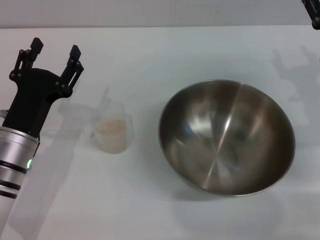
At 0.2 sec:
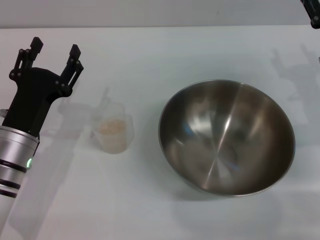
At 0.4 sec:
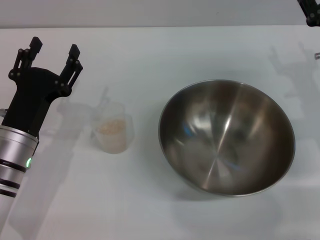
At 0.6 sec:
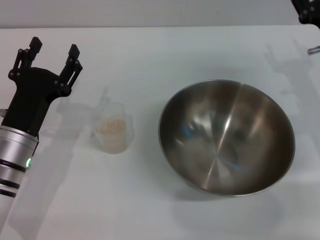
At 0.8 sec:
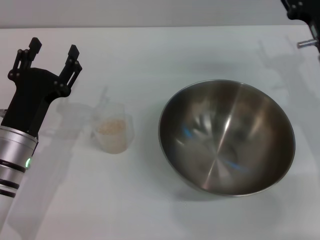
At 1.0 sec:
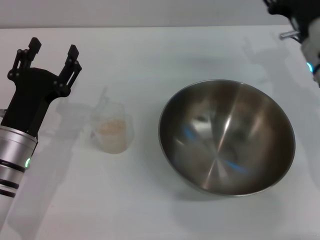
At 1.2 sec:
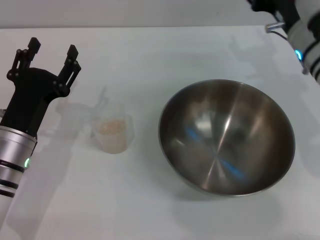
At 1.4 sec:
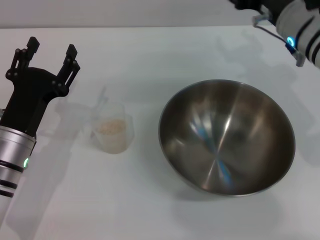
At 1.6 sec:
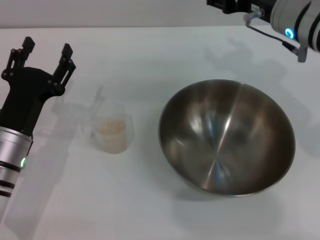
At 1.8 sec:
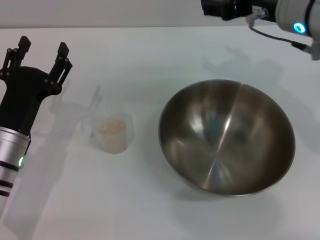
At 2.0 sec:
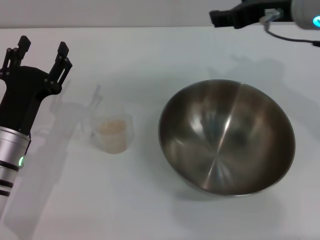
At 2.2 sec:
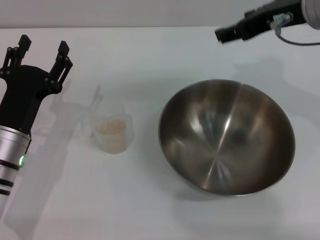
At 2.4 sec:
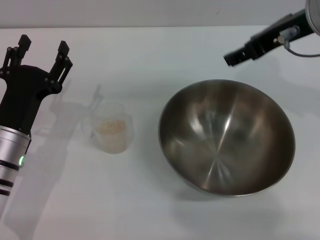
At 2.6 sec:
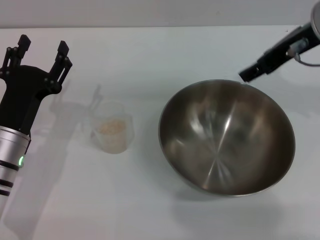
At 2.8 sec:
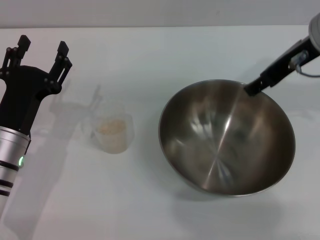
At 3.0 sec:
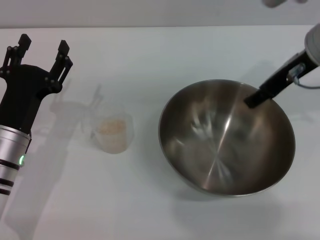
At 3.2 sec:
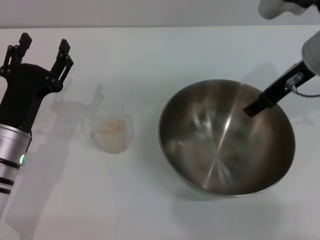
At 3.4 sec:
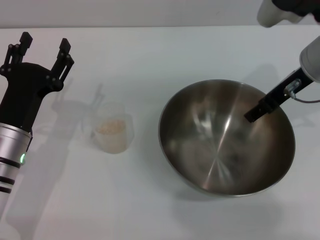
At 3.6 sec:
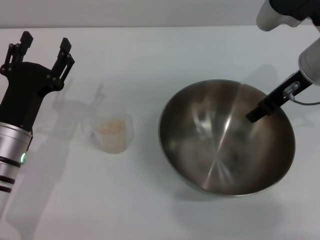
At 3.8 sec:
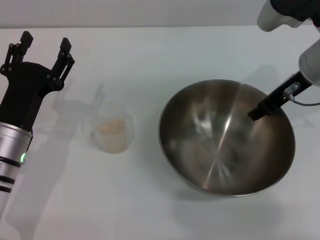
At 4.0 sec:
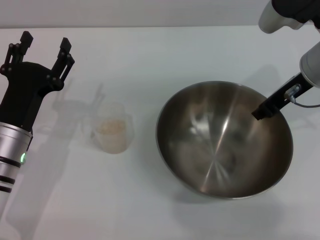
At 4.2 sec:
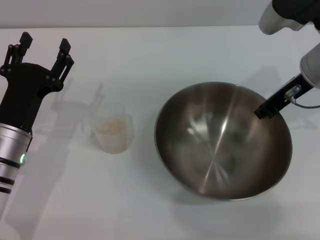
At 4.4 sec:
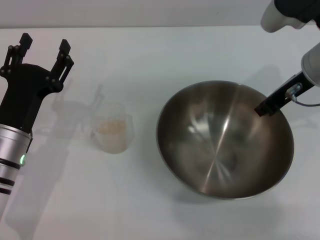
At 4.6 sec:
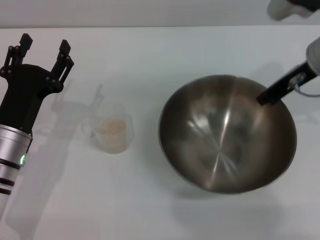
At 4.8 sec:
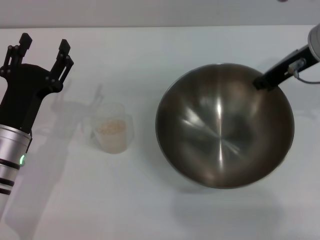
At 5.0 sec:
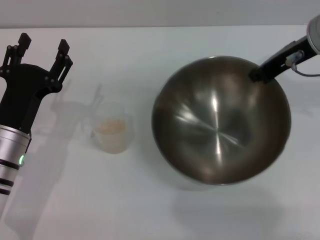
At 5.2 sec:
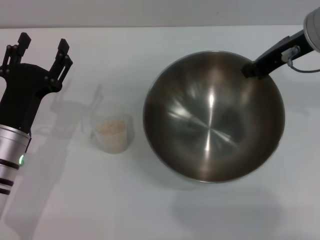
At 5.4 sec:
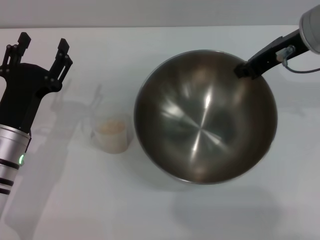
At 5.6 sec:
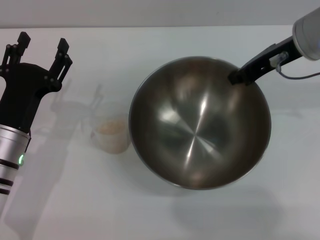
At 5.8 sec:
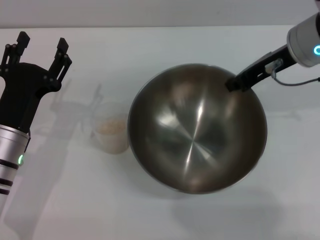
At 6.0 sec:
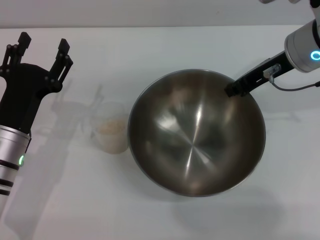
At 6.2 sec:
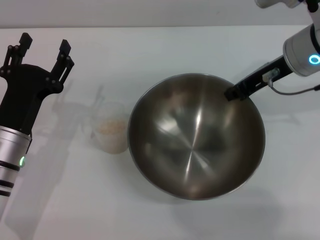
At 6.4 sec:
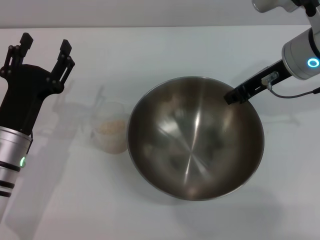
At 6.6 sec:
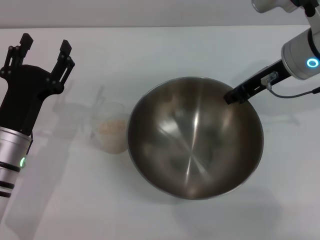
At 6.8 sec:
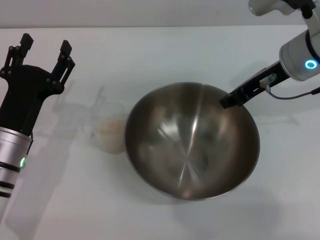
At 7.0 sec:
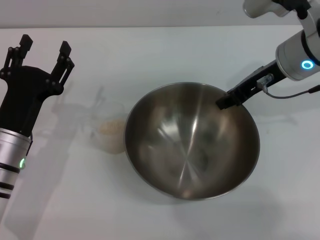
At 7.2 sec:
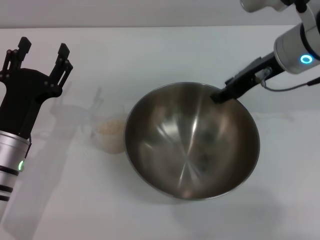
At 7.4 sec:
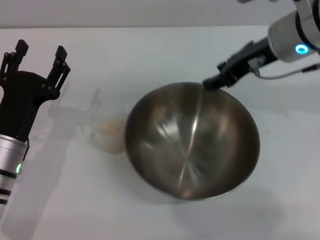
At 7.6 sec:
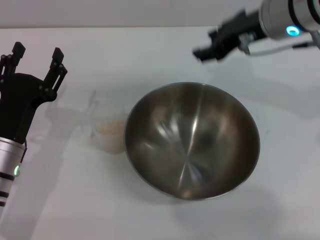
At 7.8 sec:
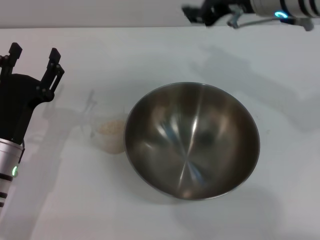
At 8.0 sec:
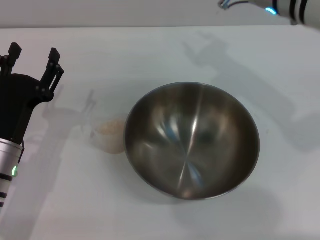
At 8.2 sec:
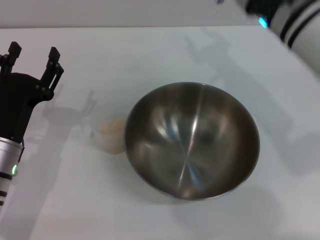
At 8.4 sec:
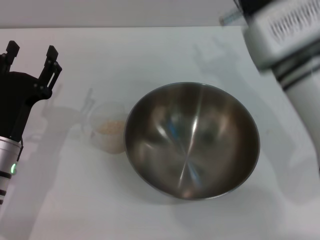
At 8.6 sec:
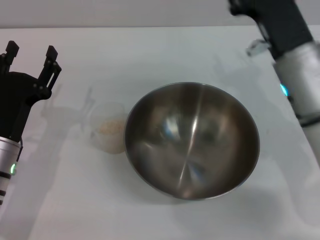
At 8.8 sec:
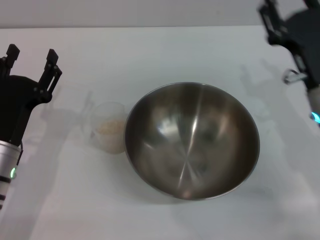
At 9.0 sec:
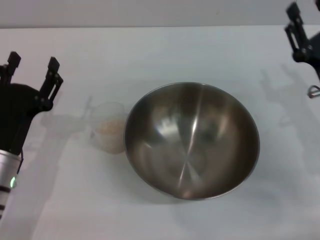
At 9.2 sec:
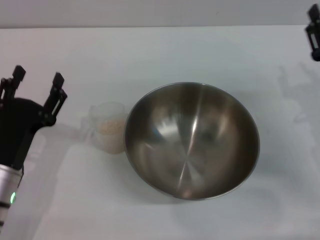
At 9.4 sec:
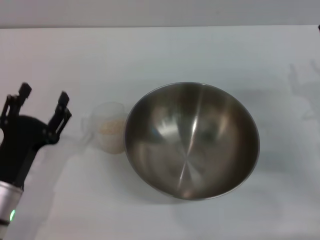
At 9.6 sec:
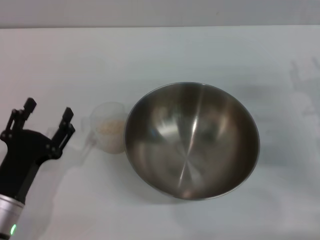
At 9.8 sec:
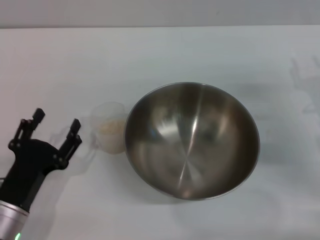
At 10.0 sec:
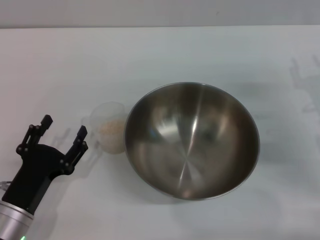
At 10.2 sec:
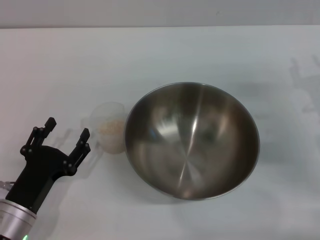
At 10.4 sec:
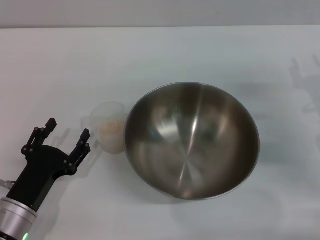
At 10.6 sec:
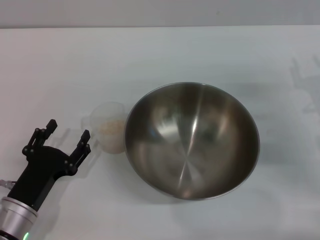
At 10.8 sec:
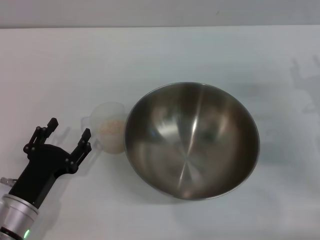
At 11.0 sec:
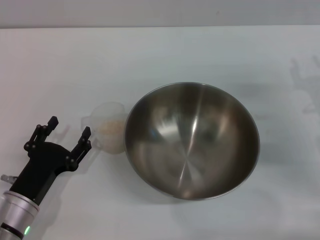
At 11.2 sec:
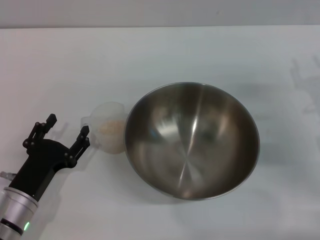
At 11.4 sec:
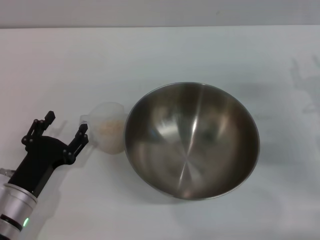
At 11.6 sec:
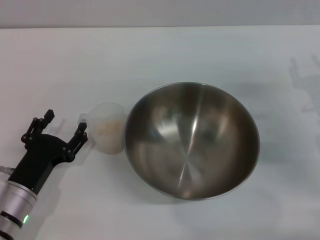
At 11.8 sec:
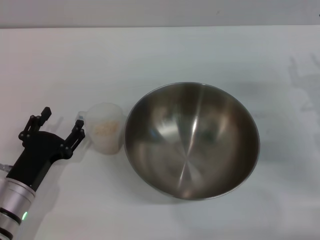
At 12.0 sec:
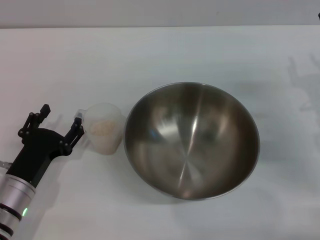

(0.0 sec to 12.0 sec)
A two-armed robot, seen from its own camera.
Task of the whole recording: Place the bowl in the middle of the table with one hand and pour the rice from the grain cup into it with the other hand.
Step, 0.0 sec - 5.2 sec: Pick up the bowl with the right gripper.
Step, 5.4 sec - 7.4 sec: Place the bowl in the center of view with the right gripper.
0.0 sec - 1.6 sec: The right gripper travels upward, to the left and forward by some 15 cm.
3.0 sec - 4.4 sec: The right gripper closes its fingers.
6.0 sec - 7.6 sec: The right gripper ends up approximately 5 cm from where it was, and opens.
7.6 sec - 9.0 sec: The right gripper heads downward, to the right and backward, covering about 20 cm.
9.0 sec - 10.4 sec: The left gripper moves backward, approximately 5 cm.
10.4 sec - 12.0 sec: The grippers make only small movements.

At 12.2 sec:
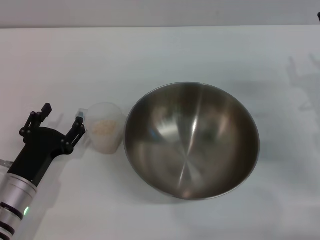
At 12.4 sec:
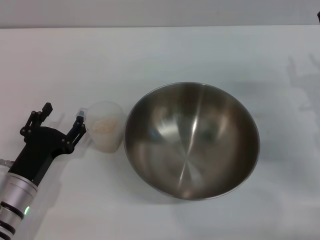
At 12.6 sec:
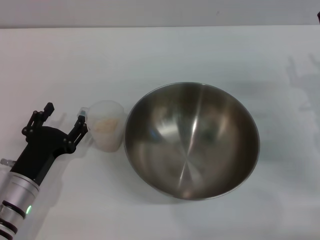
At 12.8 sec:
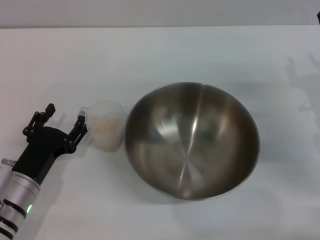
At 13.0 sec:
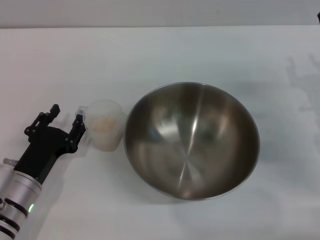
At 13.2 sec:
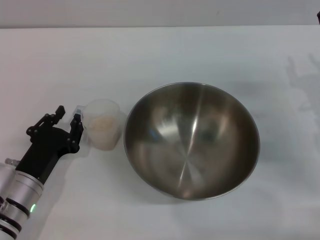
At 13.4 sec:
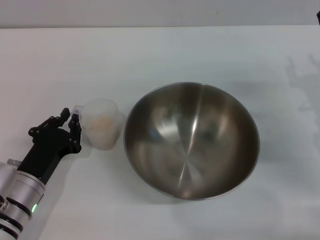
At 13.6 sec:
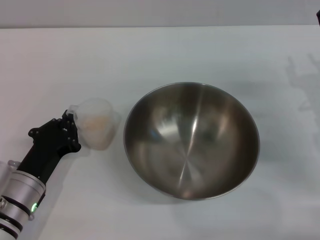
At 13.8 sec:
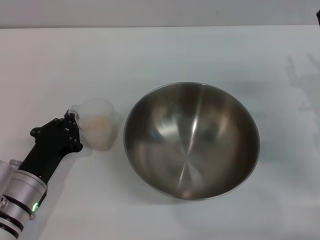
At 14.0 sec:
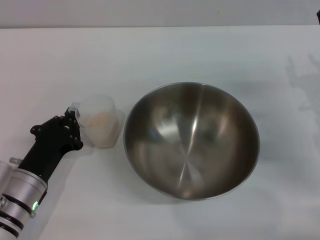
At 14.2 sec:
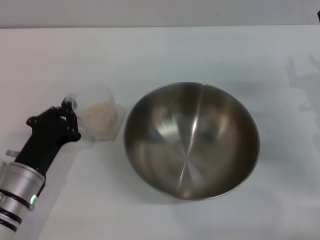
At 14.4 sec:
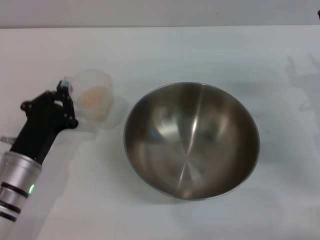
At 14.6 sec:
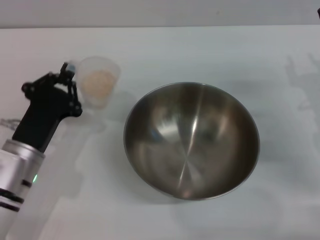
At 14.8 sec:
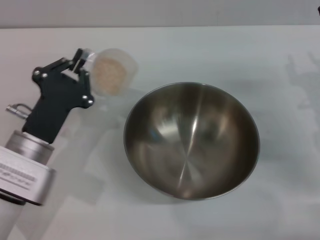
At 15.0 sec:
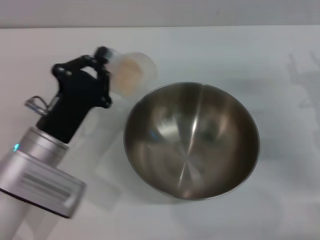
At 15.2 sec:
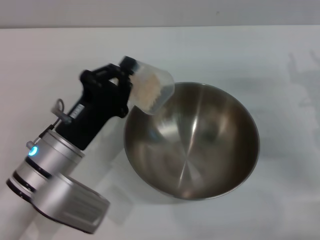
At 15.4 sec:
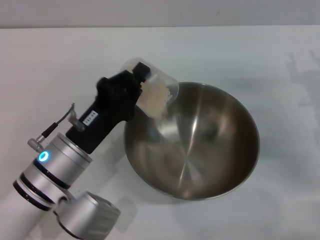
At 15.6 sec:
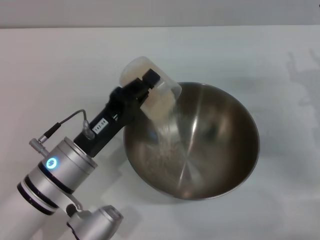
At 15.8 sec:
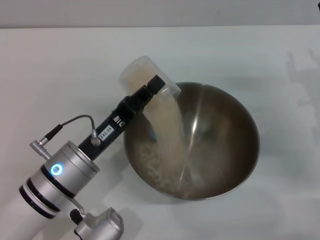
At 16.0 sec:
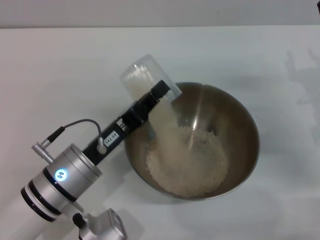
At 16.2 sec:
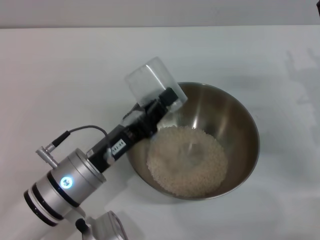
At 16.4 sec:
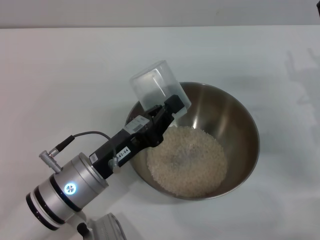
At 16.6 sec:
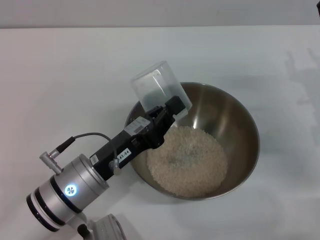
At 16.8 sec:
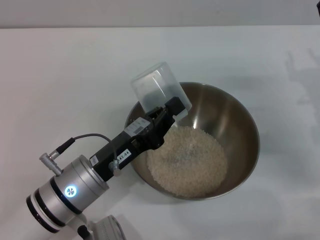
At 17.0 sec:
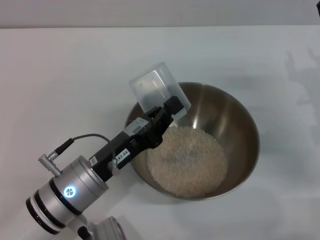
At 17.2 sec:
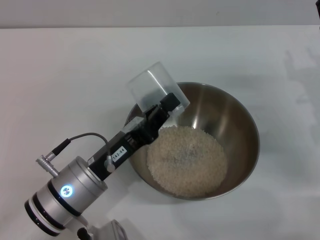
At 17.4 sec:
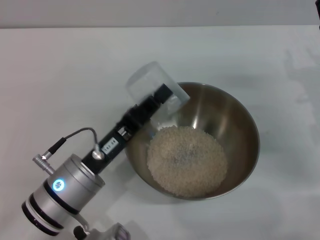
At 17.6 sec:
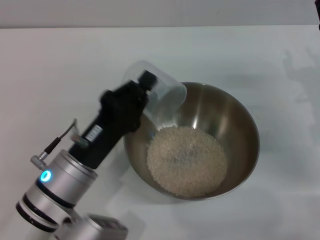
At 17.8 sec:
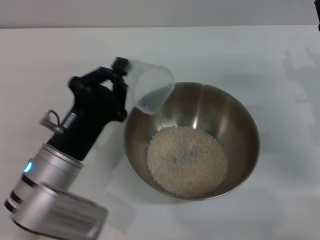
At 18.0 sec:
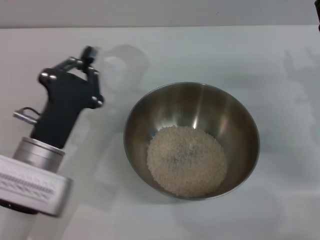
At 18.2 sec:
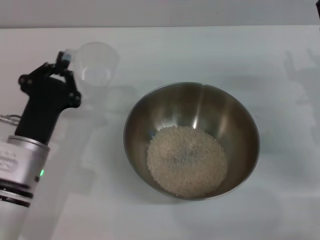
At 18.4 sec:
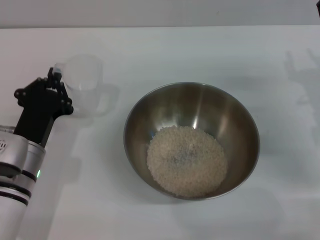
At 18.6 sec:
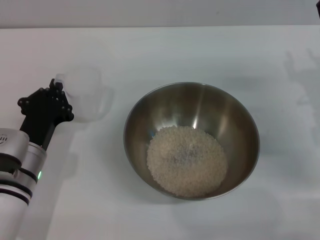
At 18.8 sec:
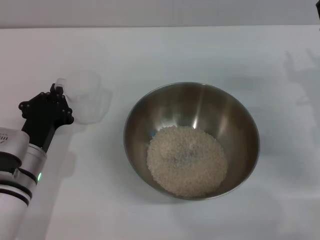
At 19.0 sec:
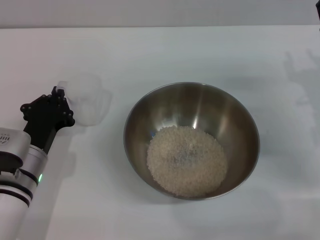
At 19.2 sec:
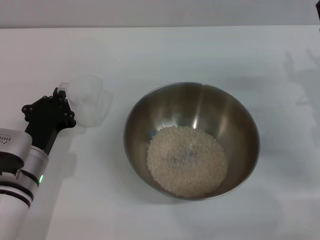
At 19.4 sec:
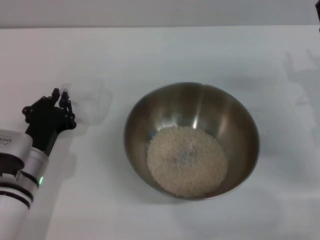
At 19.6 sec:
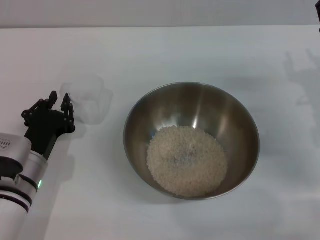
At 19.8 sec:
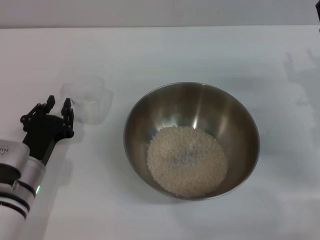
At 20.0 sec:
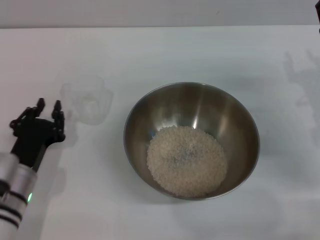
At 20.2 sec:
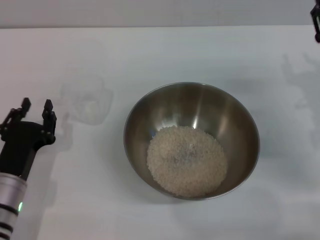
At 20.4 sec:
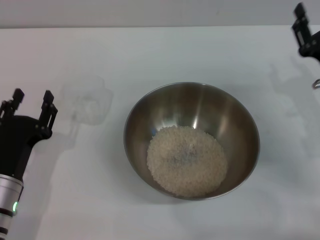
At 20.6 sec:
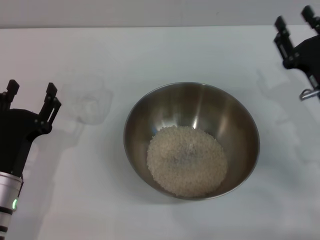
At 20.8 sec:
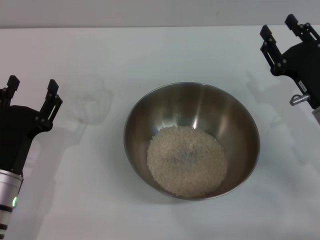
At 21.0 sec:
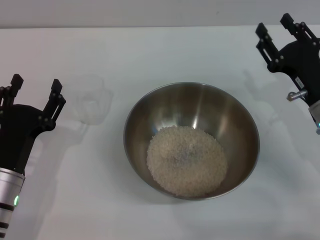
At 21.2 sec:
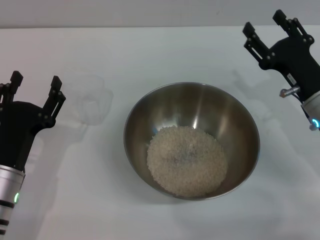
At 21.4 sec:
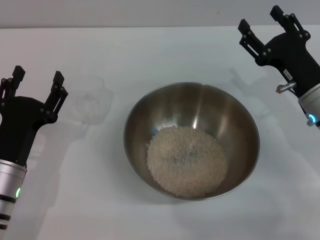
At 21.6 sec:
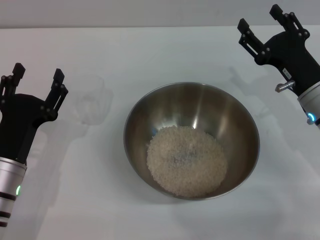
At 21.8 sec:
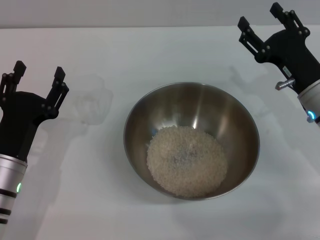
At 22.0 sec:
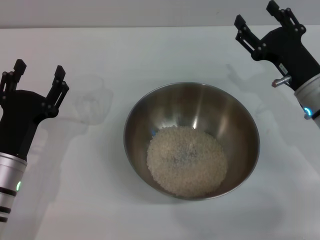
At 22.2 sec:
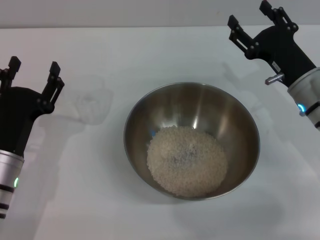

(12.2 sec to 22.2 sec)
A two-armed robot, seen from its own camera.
Task of the whole recording: Place the bowl in the middle of the table with one hand and pour the rice from the grain cup into it with the other hand.
Step, 12.2 sec - 14.4 sec: Pick up the cup with rice in it with the left gripper.
Step, 14.6 sec - 17.8 sec: Pour the rice from the cup into the bowl with the left gripper.
Step, 18.0 sec - 20.0 sec: Place the cup on the table with the left gripper.
12.2 sec - 13.6 sec: The left gripper closes up.
13.6 sec - 15.0 sec: The left gripper shifts some 5 cm upward.
15.0 sec - 16.4 sec: The left gripper ends up some 5 cm from where it was.
18.0 sec - 19.4 sec: The left gripper shifts approximately 5 cm downward.
19.4 sec - 20.8 sec: The left gripper changes place by roughly 5 cm, and opens up.
20.8 sec - 22.2 sec: The grippers move only a little.
